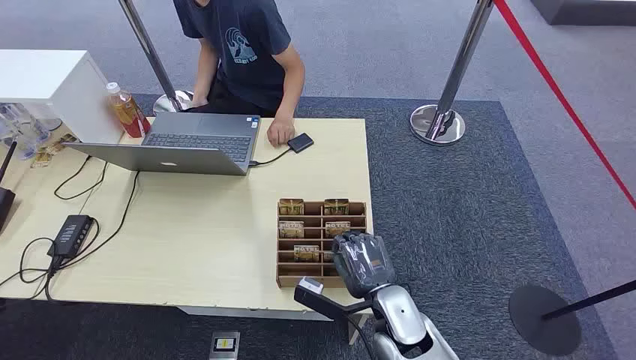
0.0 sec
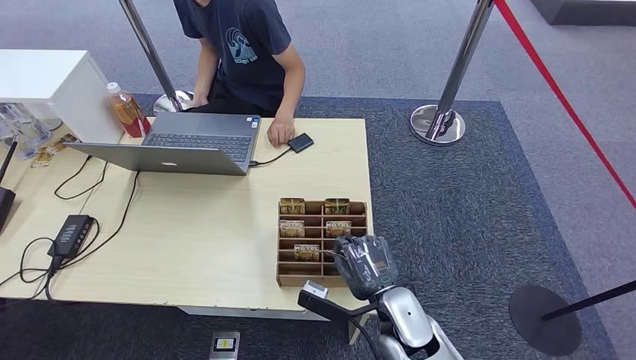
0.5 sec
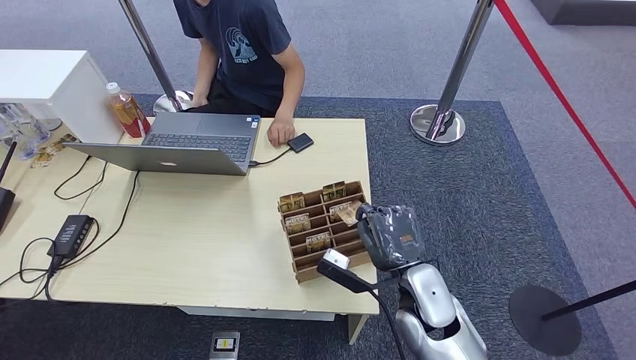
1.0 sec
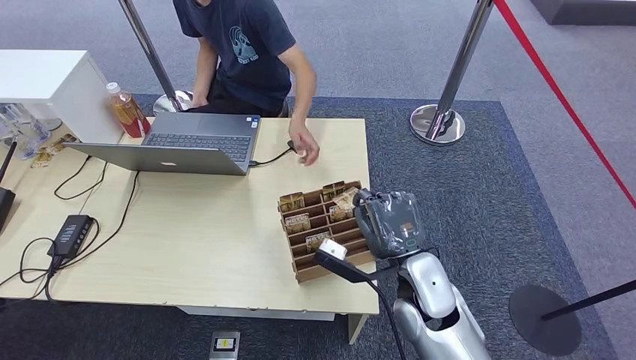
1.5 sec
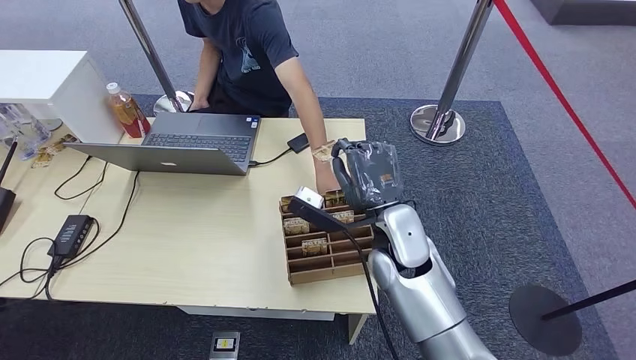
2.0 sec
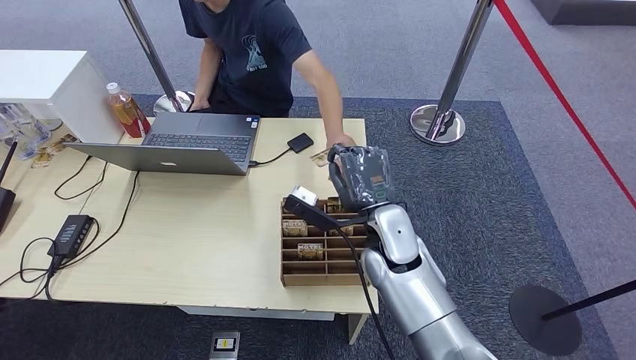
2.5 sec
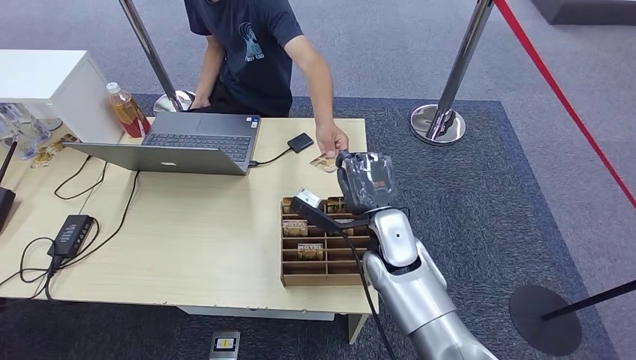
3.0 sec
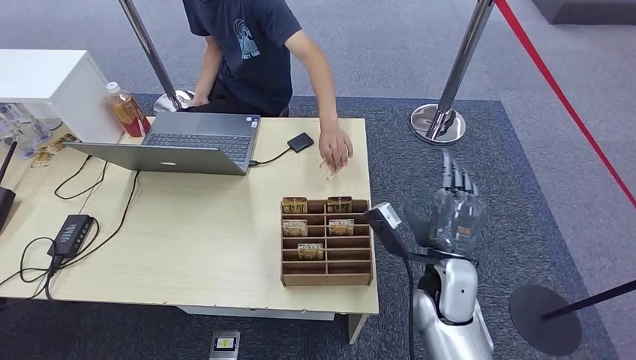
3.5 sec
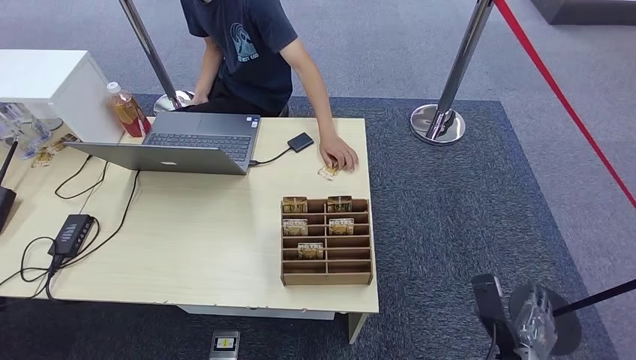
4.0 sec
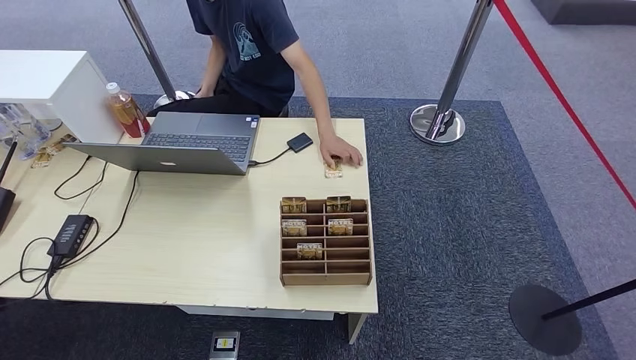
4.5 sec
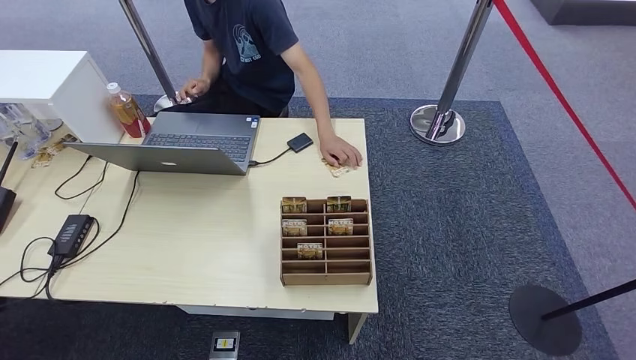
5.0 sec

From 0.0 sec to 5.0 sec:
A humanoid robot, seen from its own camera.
Step, from 0.0 sec to 2.0 sec: Pick up the room card from the card holder.
Step, from 3.0 sec to 5.0 sec: Hand the room card to the target.
From 2.5 sec to 5.0 sec: The right hand shifts about 50 cm downward, backward and to the right.

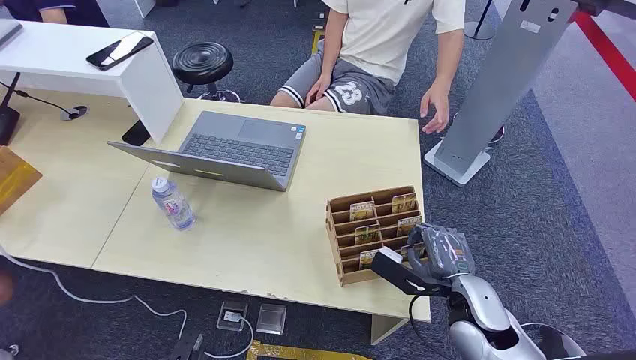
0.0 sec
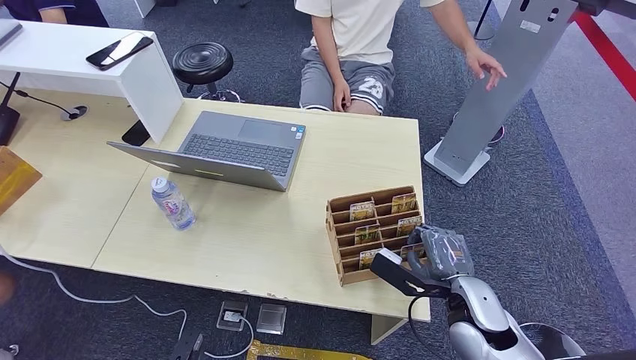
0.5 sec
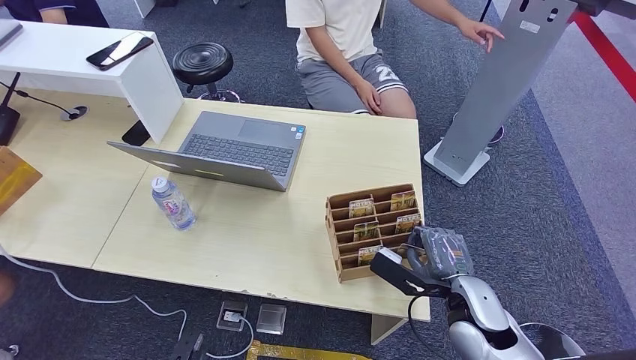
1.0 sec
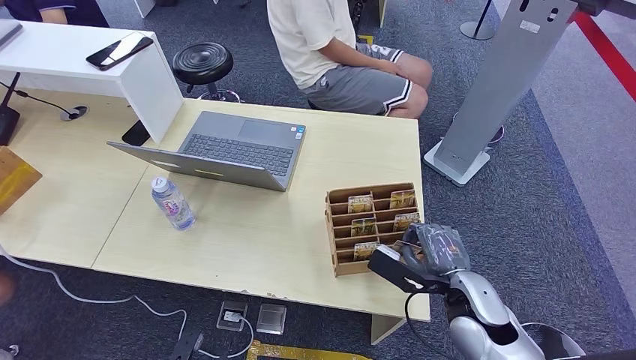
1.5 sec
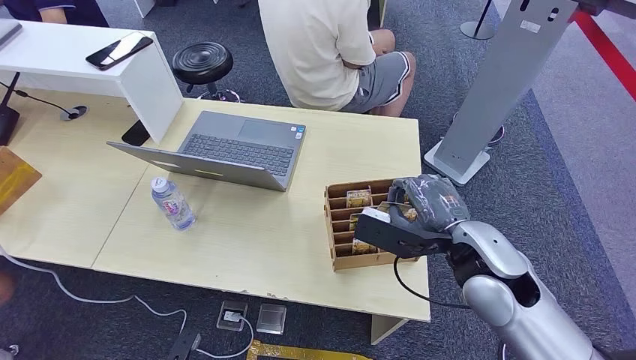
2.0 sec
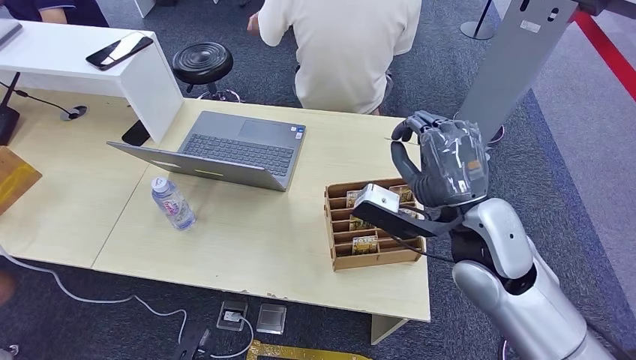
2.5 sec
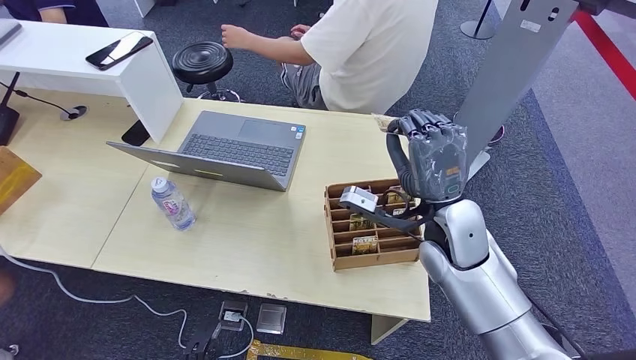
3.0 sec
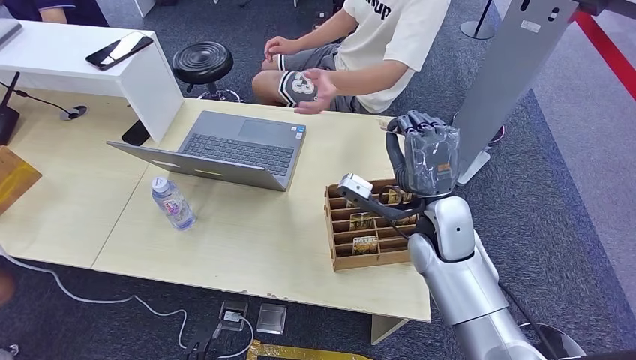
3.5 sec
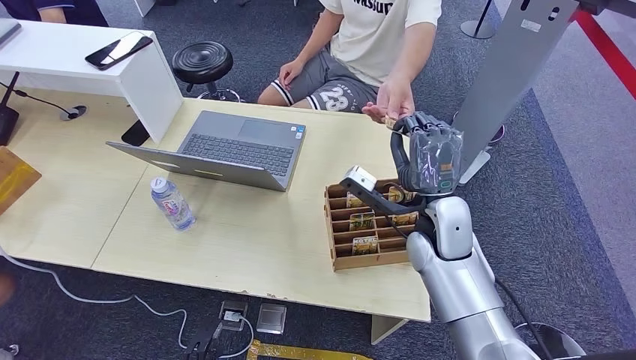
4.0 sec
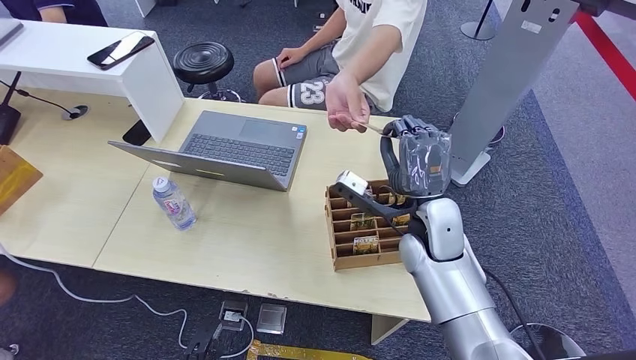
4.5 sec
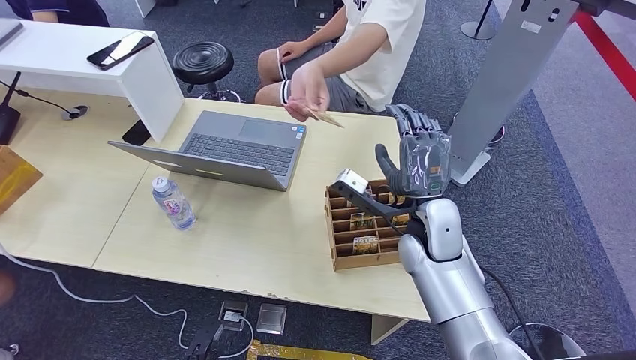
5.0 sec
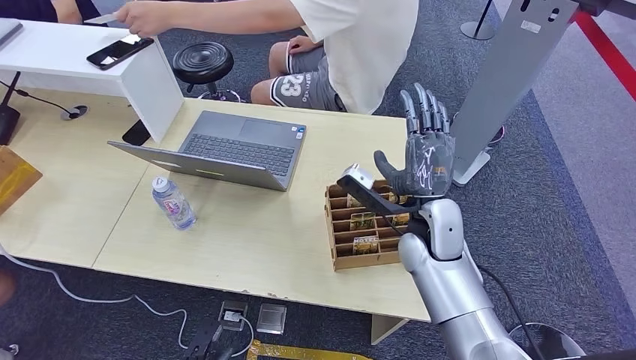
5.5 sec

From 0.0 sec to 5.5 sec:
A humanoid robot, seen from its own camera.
Step, from 0.0 sec to 2.0 sec: Pick up the room card from the card holder.
Step, from 2.5 sec to 5.5 sec: Hand the room card to the target.
From 2.0 sec to 3.5 sec: The right hand travels forward and to the left by some 10 cm.
From 3.5 sec to 5.5 sec: The hands stay close to where they were, moving slightly.
